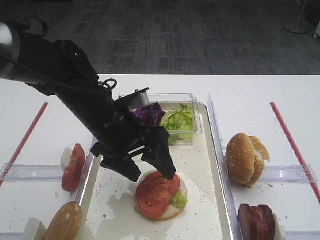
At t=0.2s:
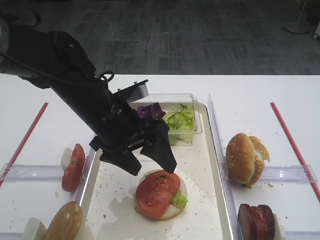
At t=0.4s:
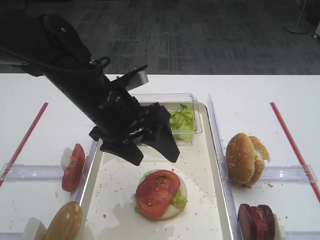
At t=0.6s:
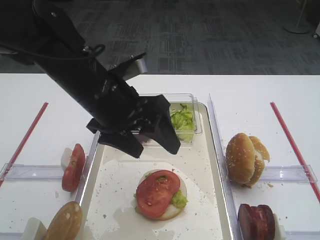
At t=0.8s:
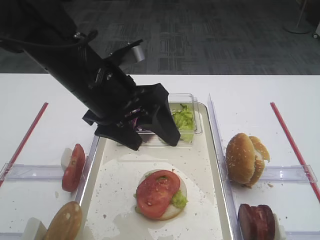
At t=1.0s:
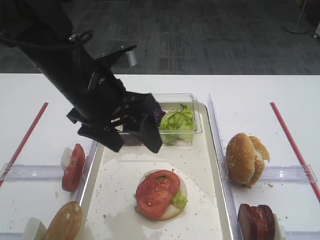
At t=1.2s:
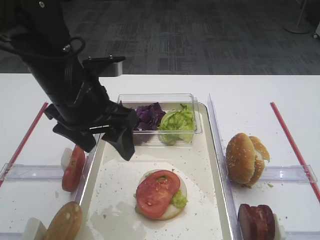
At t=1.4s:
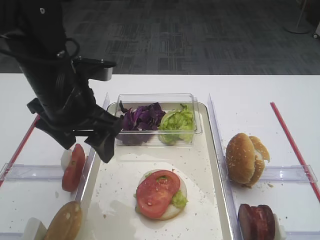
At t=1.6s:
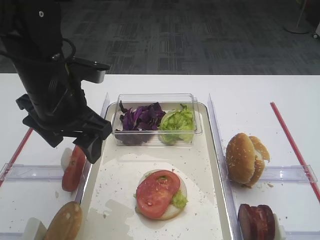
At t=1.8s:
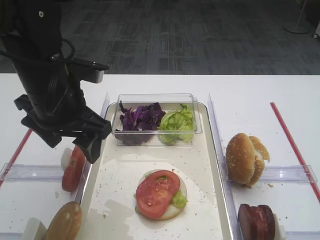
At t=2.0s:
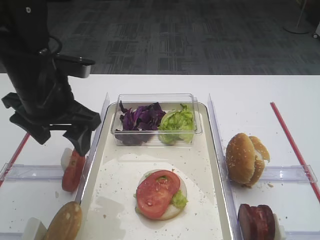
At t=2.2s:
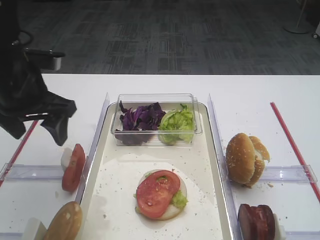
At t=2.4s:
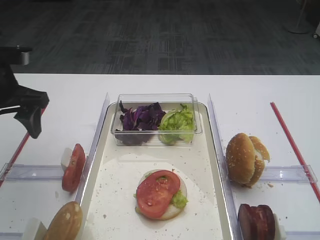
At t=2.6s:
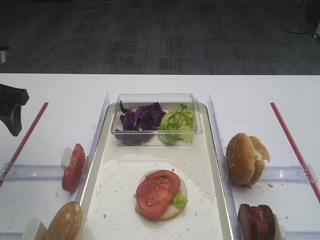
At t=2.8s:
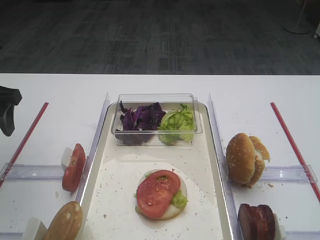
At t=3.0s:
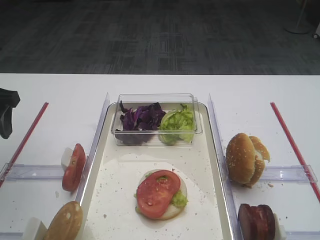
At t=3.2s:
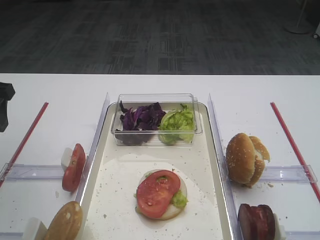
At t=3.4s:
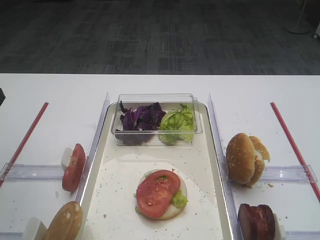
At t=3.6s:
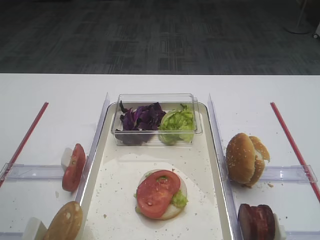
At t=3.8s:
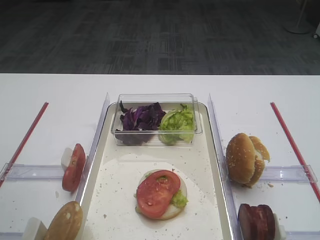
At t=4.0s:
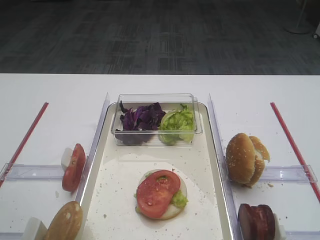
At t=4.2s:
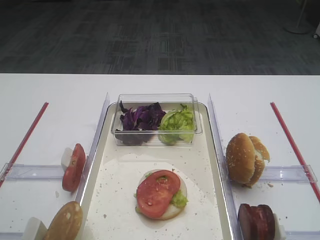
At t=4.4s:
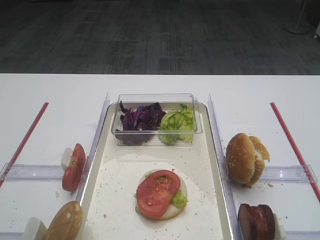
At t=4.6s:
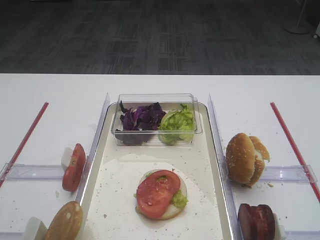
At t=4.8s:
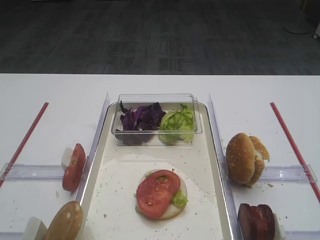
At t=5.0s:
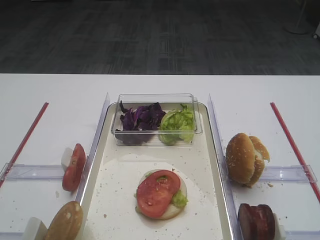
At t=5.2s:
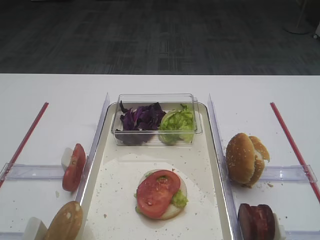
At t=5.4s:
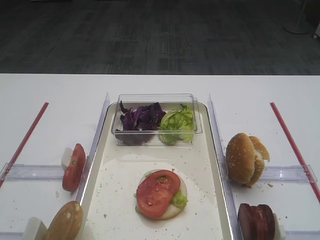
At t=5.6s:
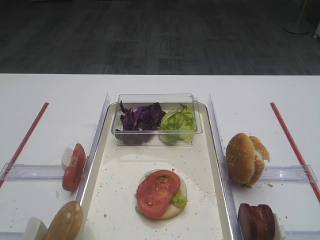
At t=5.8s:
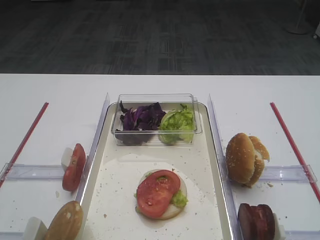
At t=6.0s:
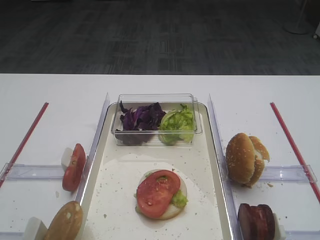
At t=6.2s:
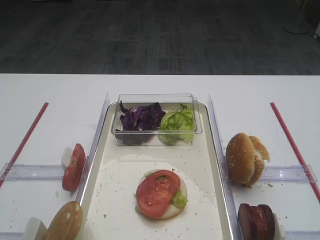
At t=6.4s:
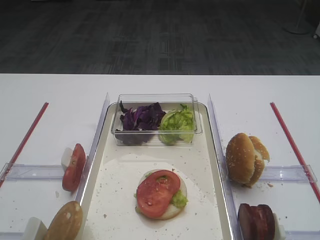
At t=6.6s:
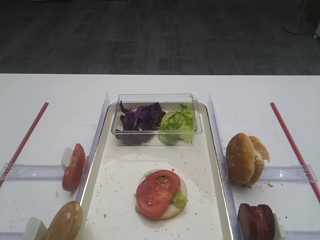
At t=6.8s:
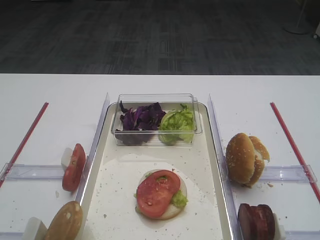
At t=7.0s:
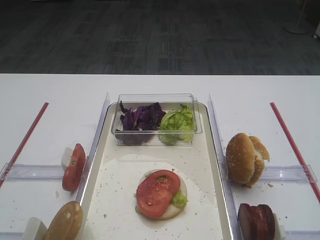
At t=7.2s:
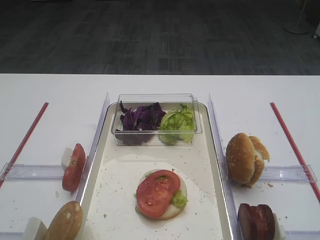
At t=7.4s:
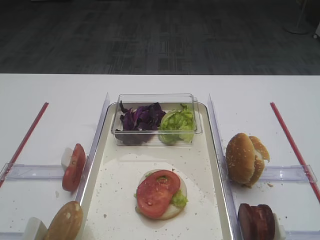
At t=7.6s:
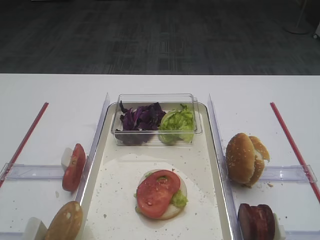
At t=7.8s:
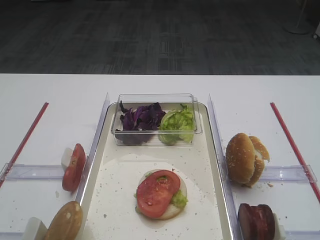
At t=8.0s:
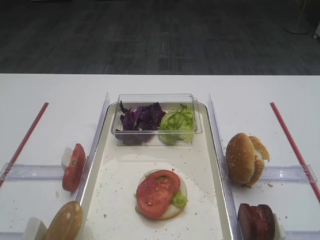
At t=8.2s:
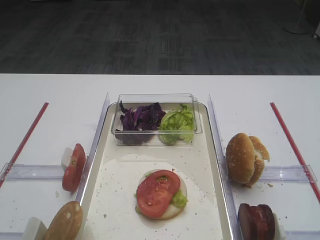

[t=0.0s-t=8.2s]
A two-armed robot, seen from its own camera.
Step, t=0.0s to t=2.4s: Place the tomato slice on the lettuce leaf with the left gripper.
t=0.0s to t=1.6s: The left gripper travels upward and to the left by approximately 10 cm.
t=1.6s to t=3.2s: The left gripper shifts about 15 cm to the left.
t=3.2s to t=5.0s: The left gripper travels backward by some 25 cm.
t=6.6s to t=8.2s: The two grippers keep their place.
